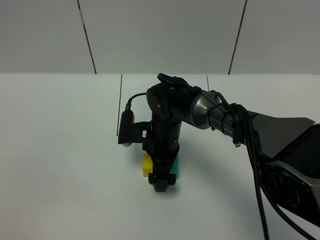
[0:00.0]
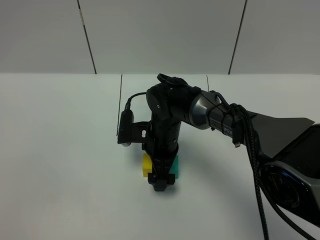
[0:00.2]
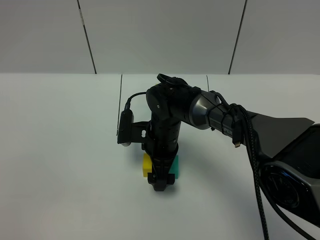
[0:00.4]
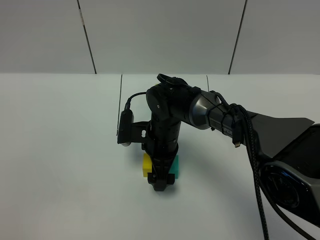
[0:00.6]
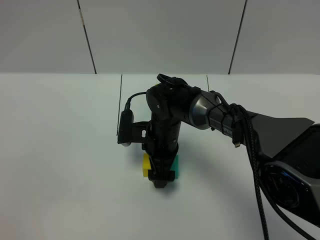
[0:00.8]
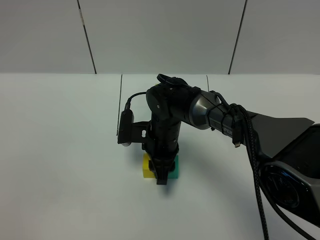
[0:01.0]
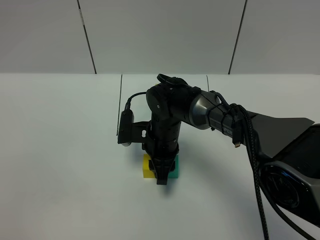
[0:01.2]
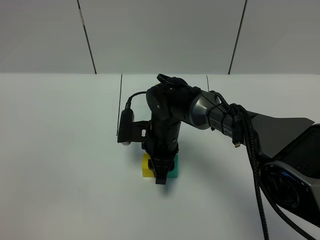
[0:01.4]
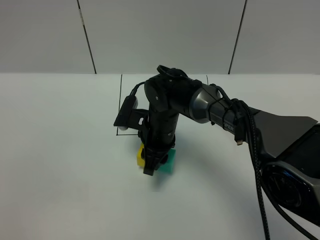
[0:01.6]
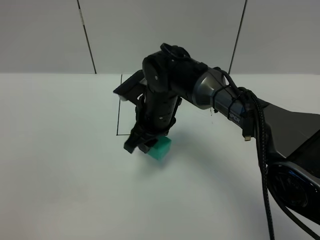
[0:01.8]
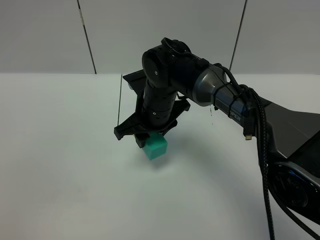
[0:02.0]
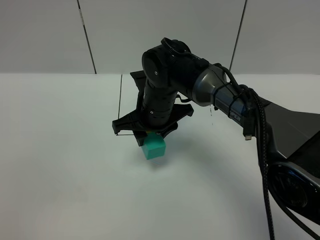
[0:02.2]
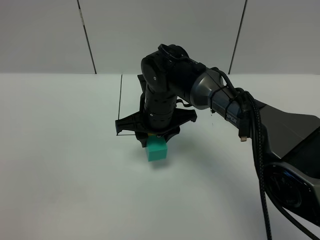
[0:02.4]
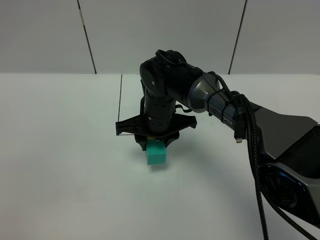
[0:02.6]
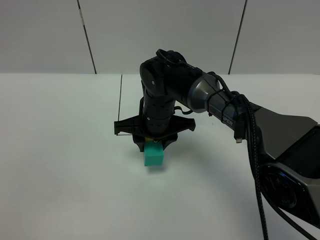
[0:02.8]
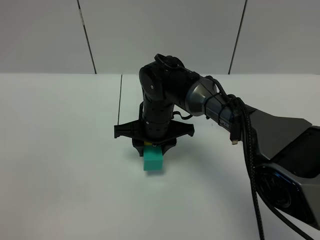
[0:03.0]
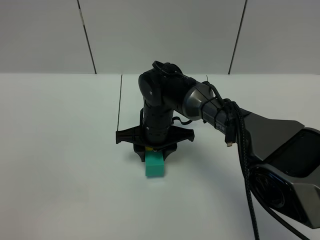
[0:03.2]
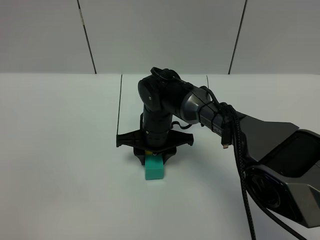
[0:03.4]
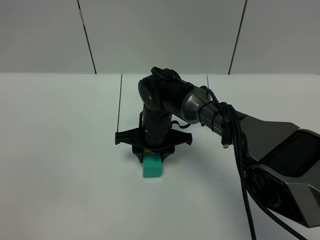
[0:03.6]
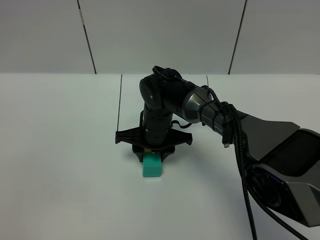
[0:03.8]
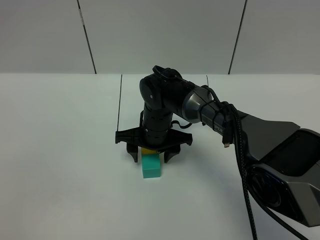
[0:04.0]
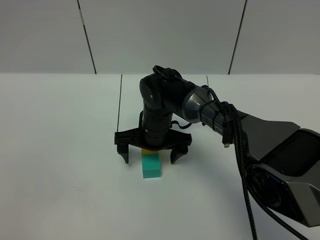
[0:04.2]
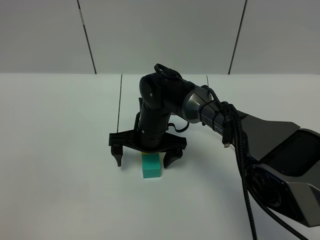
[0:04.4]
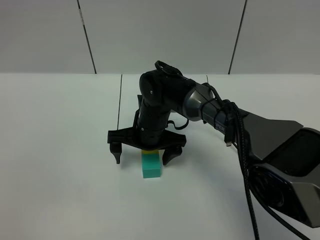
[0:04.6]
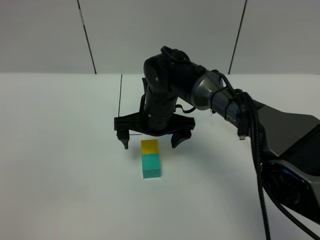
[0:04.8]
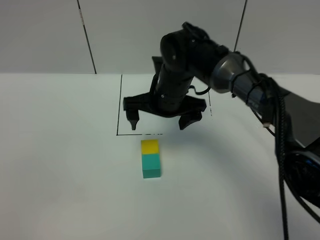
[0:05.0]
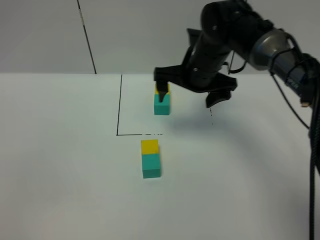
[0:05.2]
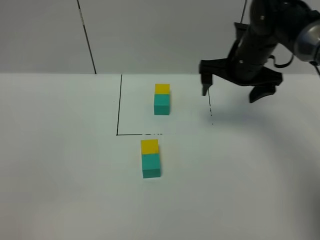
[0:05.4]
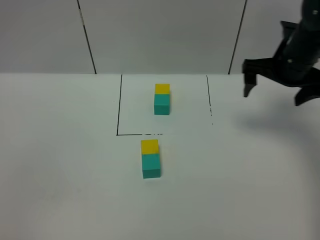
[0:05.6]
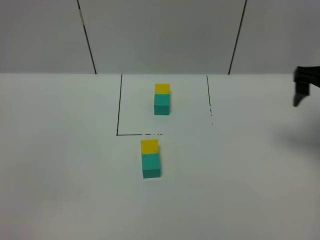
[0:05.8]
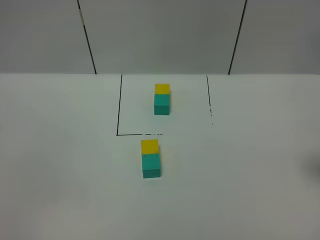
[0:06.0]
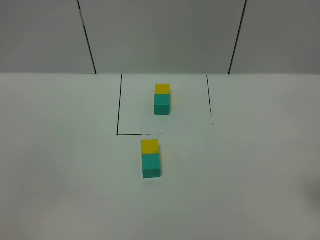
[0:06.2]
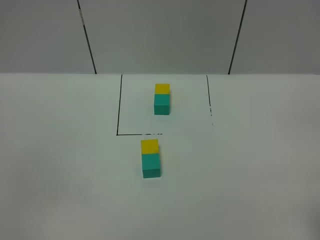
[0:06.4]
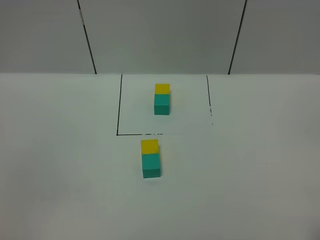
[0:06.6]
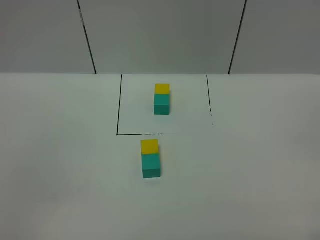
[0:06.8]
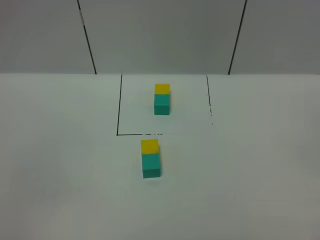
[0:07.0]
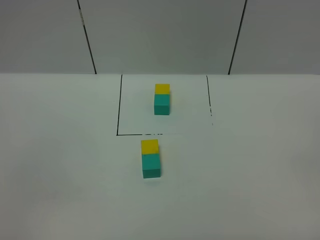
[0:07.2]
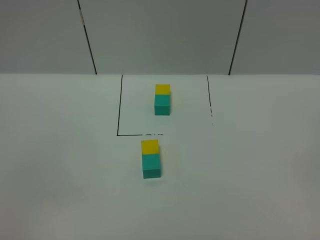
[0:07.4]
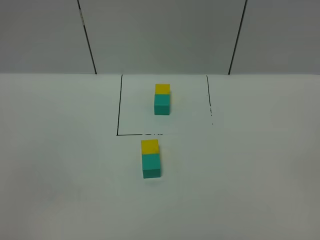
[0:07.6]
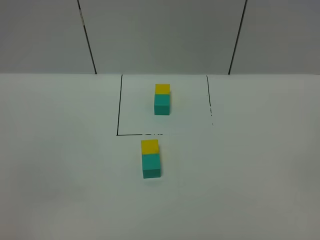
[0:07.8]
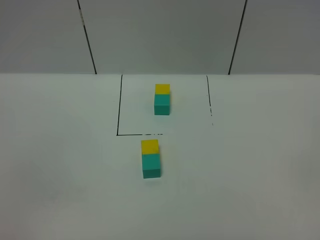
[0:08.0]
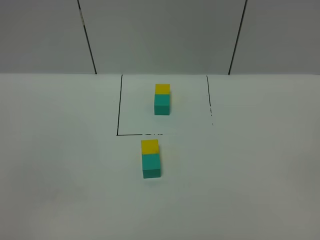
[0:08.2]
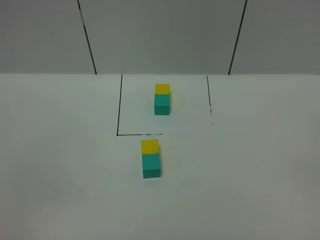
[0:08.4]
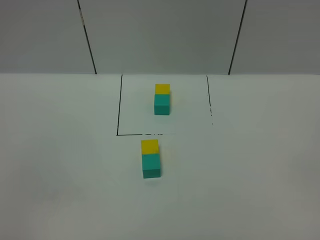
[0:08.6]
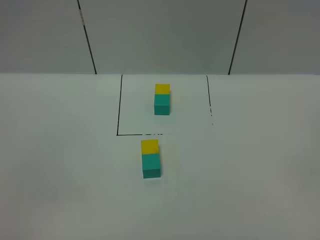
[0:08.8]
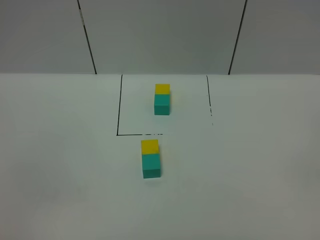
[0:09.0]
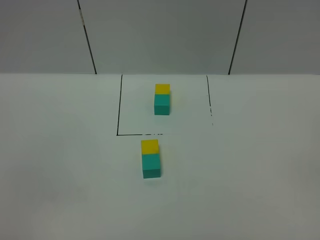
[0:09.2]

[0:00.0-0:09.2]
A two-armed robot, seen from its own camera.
Task of the whole recording: According to the building block template in front, assemble the scattered blocks together.
Step, 0:00.0 to 0:03.8: Adjust the pose of the building blocks.
0:00.0 to 0:01.6: The right gripper closes up.
0:03.0 to 0:04.6: The right gripper opens its fingers.
0:04.6 to 0:06.2: The right gripper goes roughly 40 cm to the right, backward and upward.
0:07.6 to 0:09.2: Both grippers stay about where they are.
